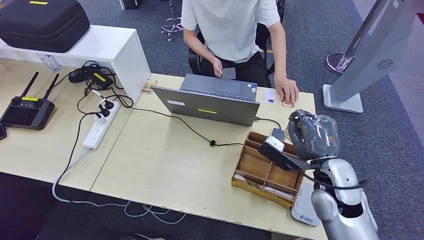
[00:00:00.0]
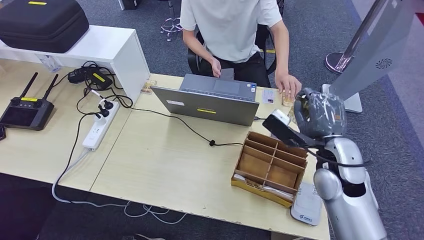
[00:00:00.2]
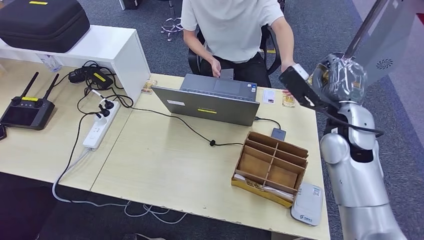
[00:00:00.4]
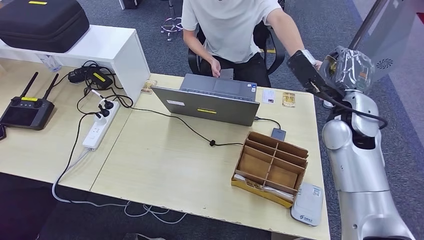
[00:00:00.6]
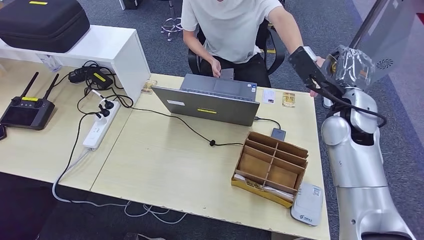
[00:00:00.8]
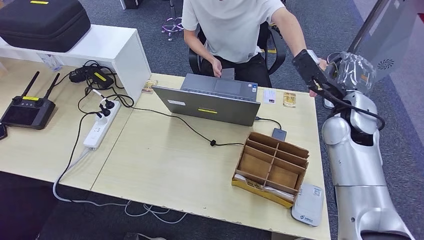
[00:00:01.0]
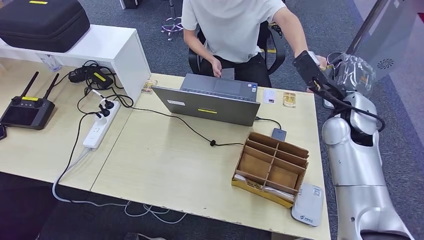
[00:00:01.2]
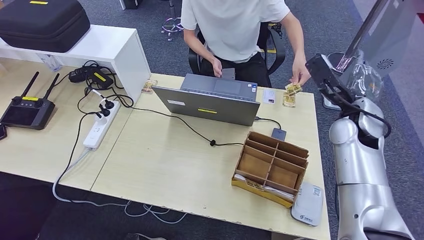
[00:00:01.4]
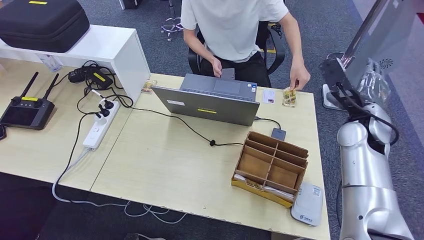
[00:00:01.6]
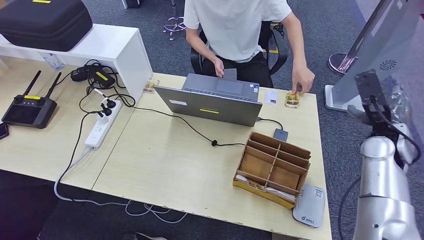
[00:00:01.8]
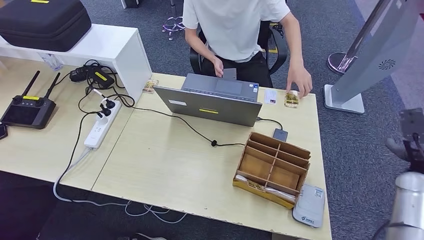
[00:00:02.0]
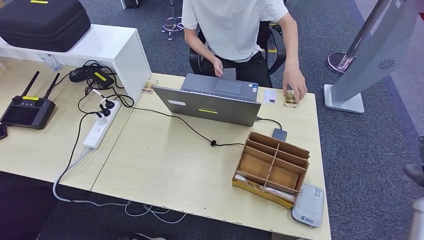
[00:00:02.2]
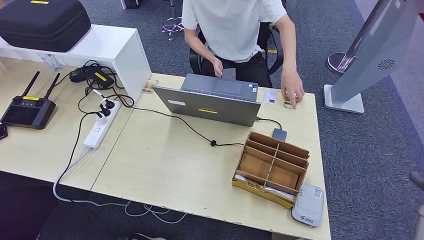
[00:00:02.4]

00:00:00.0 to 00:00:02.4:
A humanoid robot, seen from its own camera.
Step, 00:00:00.4 to 00:00:02.4: Hand the room key to the person.
00:00:00.0 to 00:00:01.2: The right hand moves forward and upward, approximately 15 cm.
00:00:01.2 to 00:00:02.4: The right hand shifts roughly 35 cm to the right, downward and backward.
